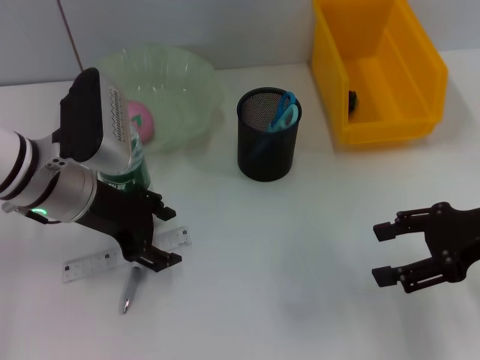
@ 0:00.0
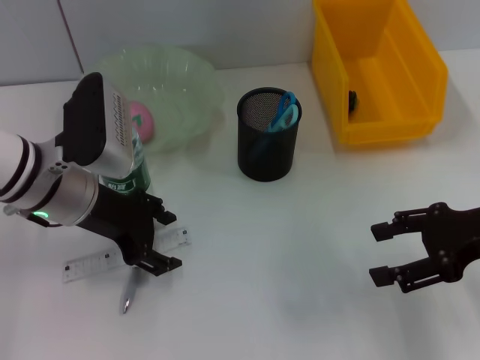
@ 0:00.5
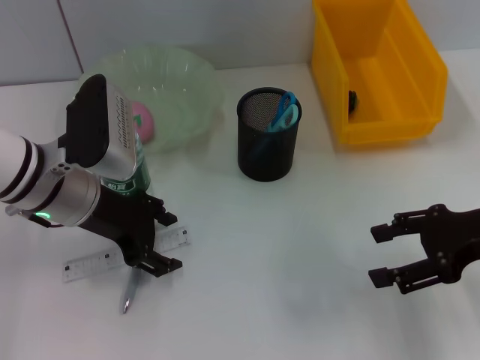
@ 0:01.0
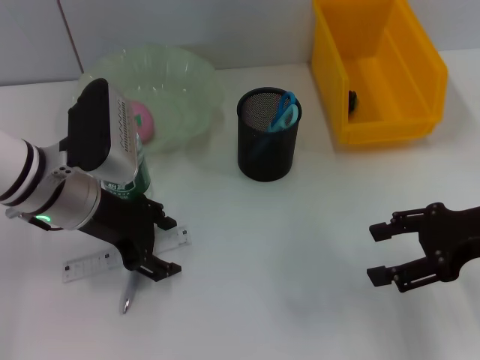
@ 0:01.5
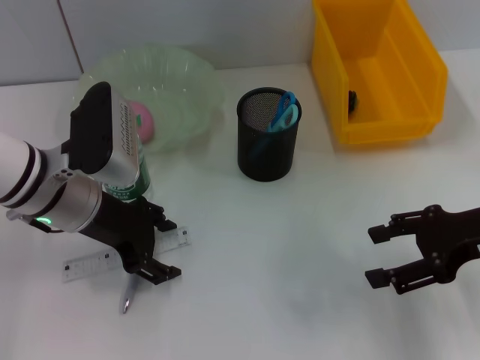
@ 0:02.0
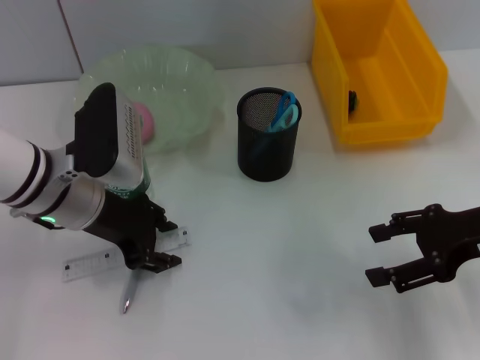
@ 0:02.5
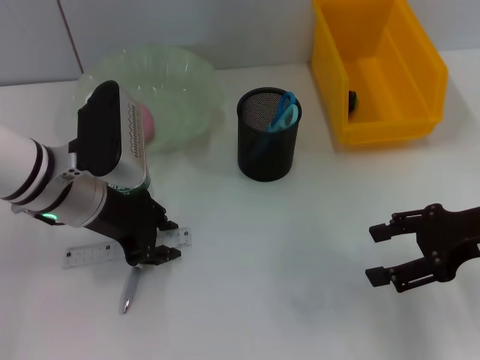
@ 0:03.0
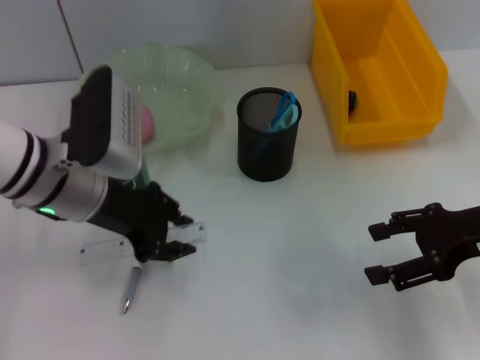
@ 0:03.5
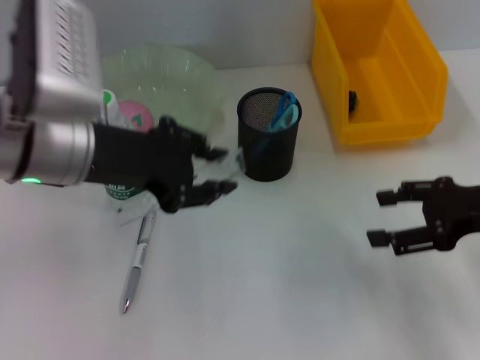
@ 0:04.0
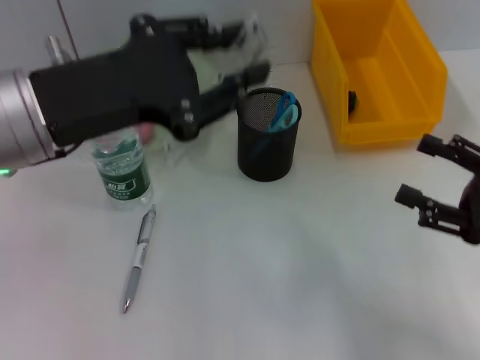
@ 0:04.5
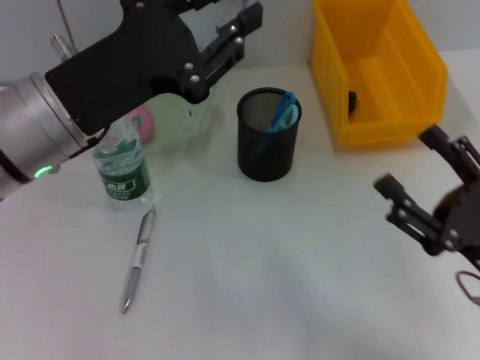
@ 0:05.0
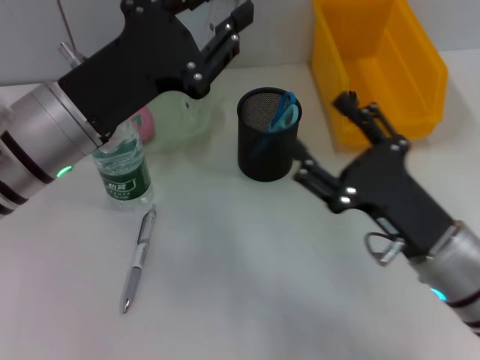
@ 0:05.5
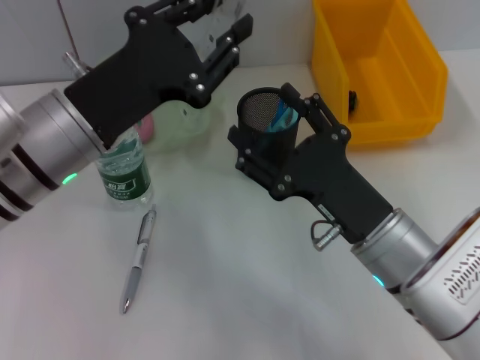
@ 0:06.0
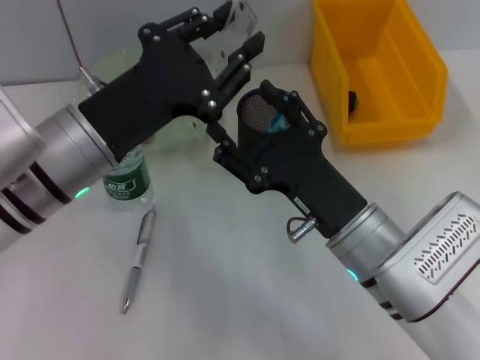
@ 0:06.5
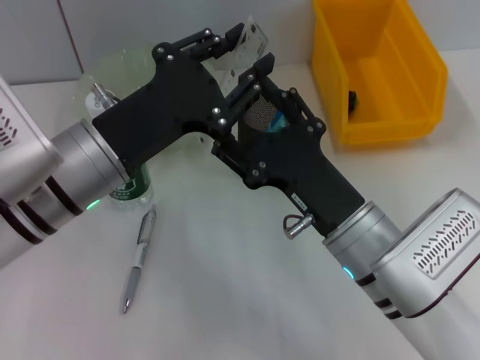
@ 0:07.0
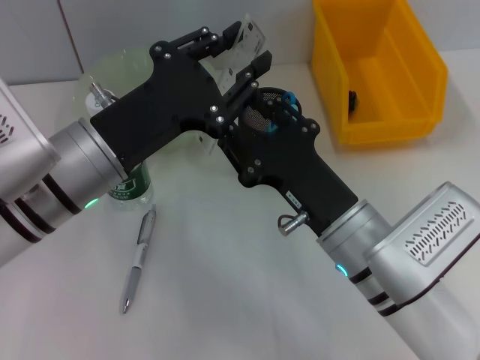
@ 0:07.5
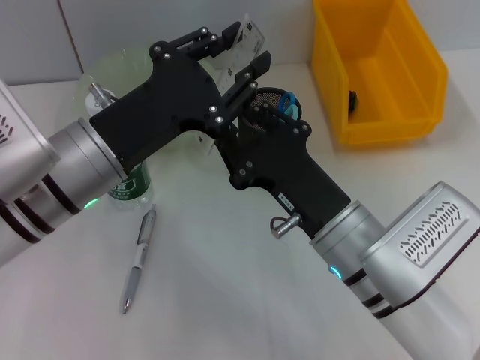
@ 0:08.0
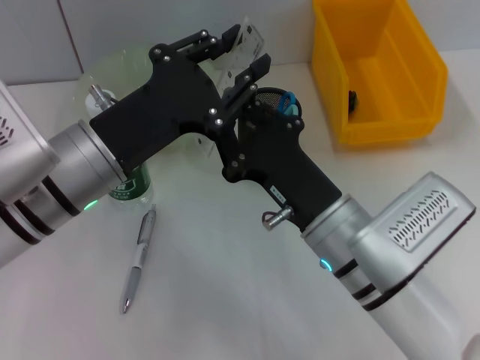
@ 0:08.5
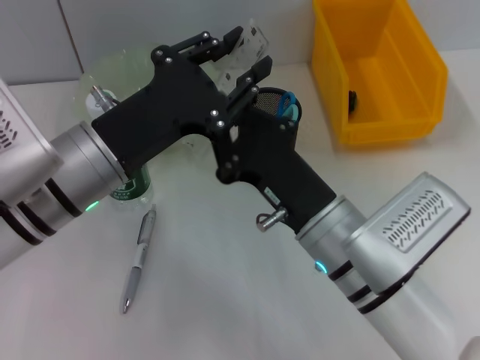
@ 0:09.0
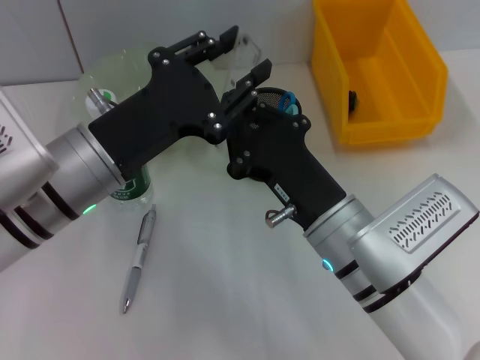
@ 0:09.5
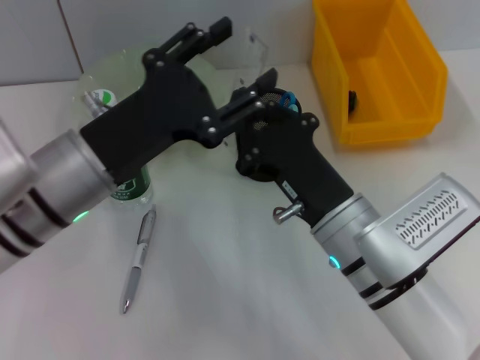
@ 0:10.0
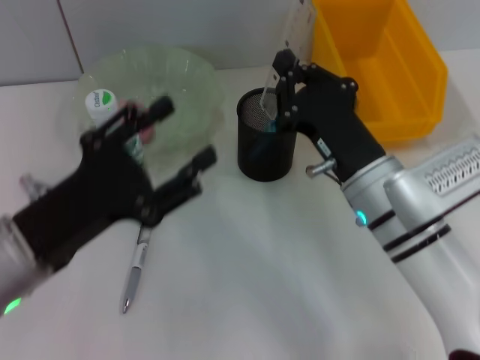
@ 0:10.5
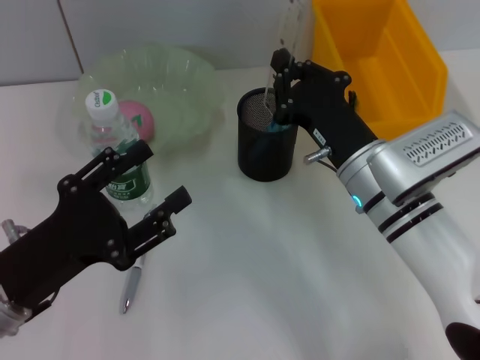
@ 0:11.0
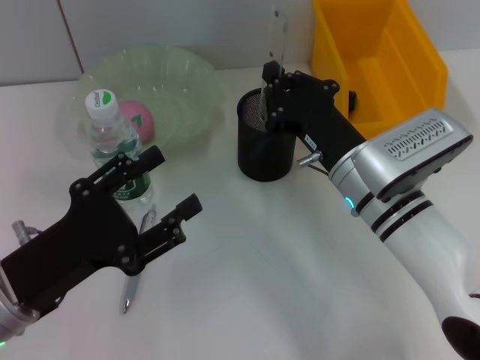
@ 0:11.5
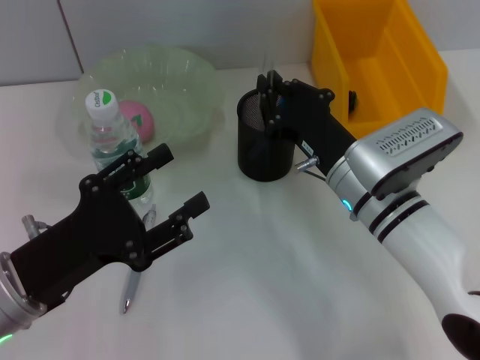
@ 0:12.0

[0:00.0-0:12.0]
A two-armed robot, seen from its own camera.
Step, 0:00.0 to 0:03.0: Grab the ruler with the left hand.
Step, 0:03.5 to 0:10.0: Pass the ruler from the left hand to the right hand.
0:00.0 to 0:02.0: Both grippers stay about where they are.
0:02.0 to 0:04.0: The left gripper is displaced upward by roughly 5 cm, and closes up.
0:04.0 to 0:06.0: The right gripper moves to the left, some 15 cm.
0:06.0 to 0:08.0: The right gripper closes up.
0:08.0 to 0:10.0: The right gripper closes up.
0:10.0 to 0:12.0: The right gripper goes approximately 5 cm forward. Meanwhile the left gripper is displaced to the left, backward and downward by approximately 10 cm.

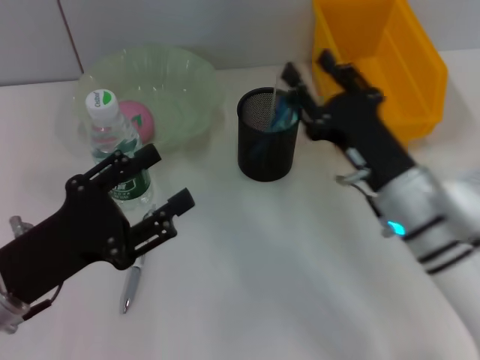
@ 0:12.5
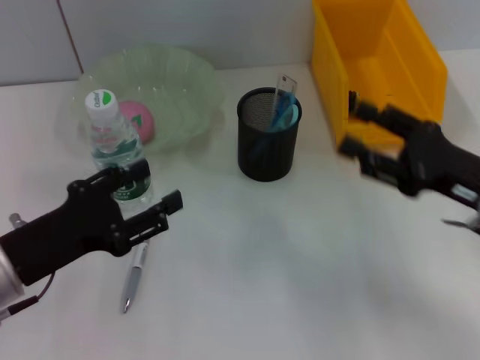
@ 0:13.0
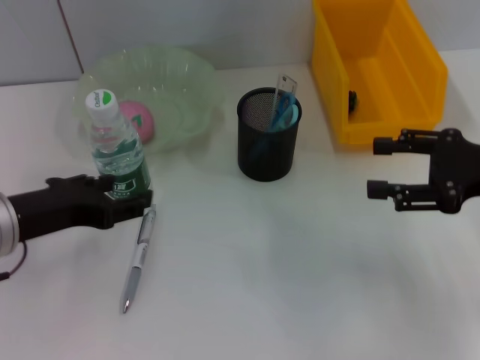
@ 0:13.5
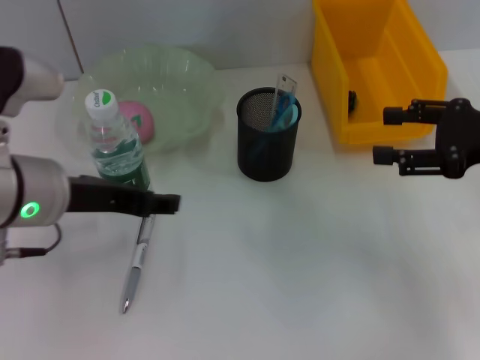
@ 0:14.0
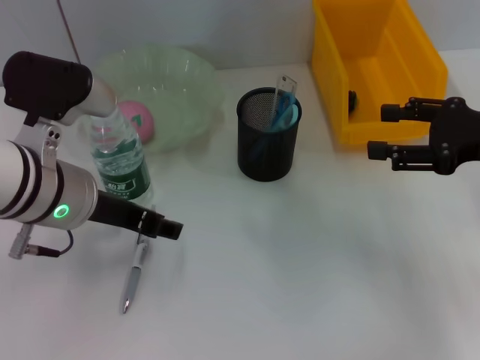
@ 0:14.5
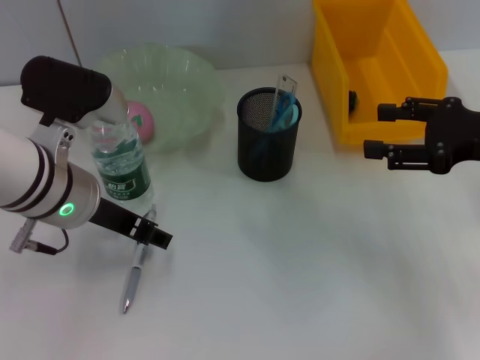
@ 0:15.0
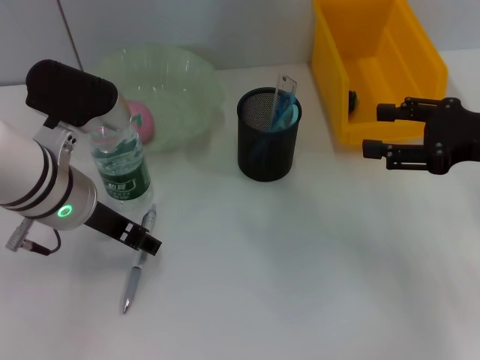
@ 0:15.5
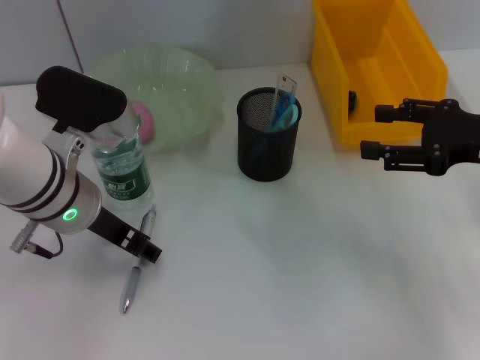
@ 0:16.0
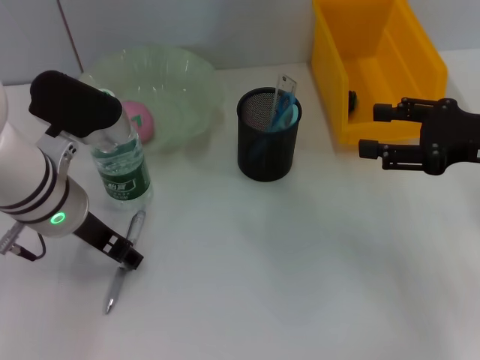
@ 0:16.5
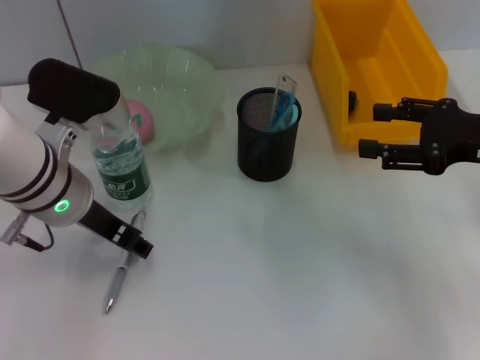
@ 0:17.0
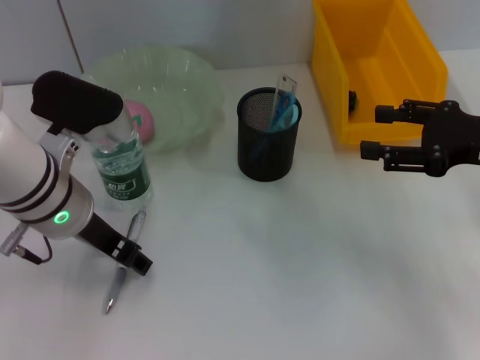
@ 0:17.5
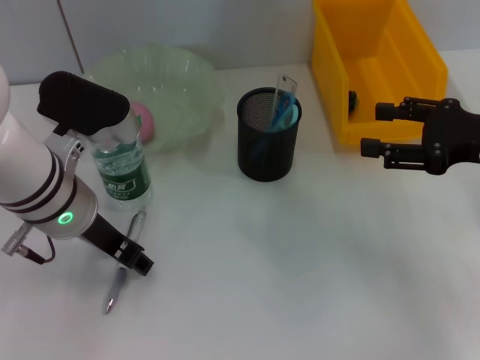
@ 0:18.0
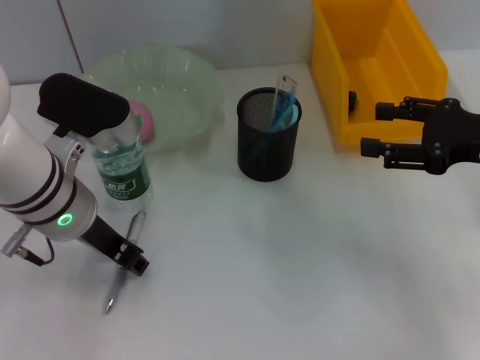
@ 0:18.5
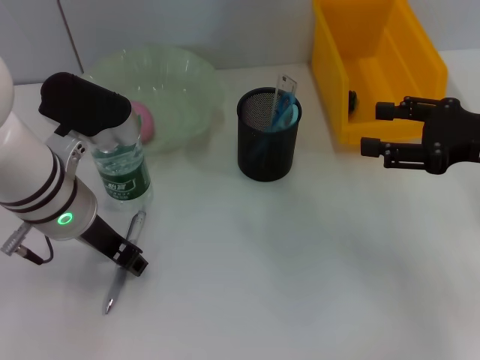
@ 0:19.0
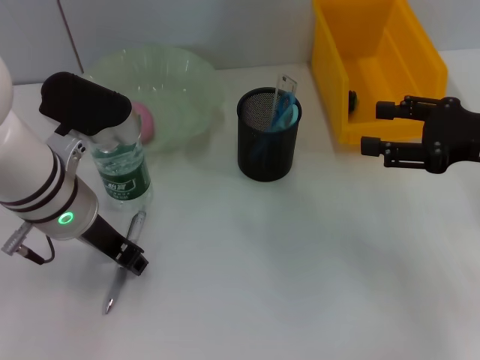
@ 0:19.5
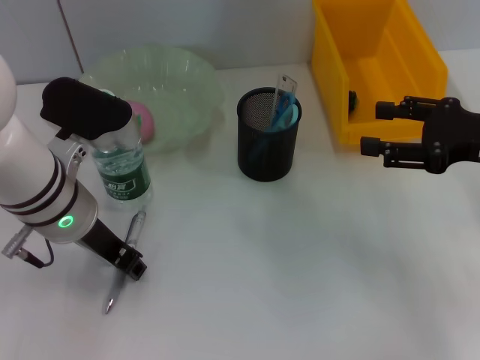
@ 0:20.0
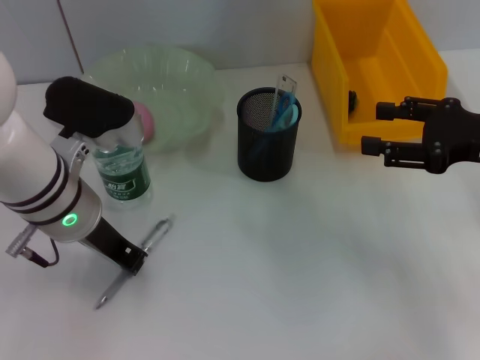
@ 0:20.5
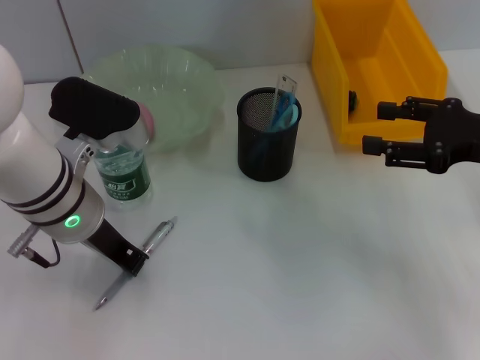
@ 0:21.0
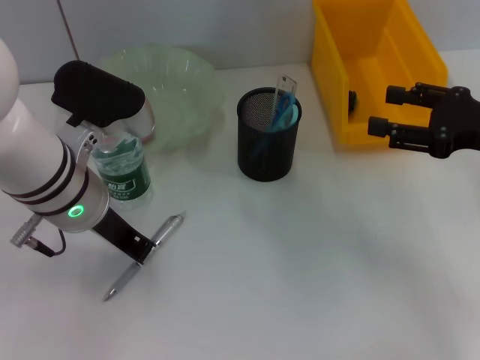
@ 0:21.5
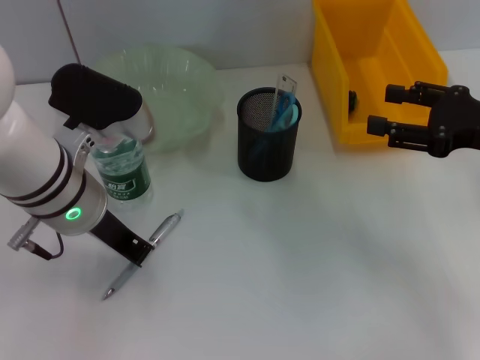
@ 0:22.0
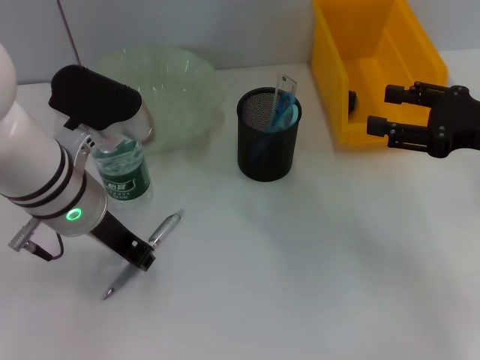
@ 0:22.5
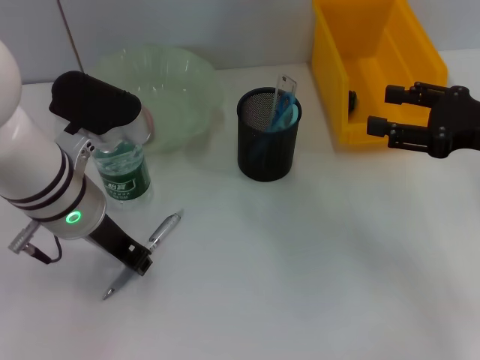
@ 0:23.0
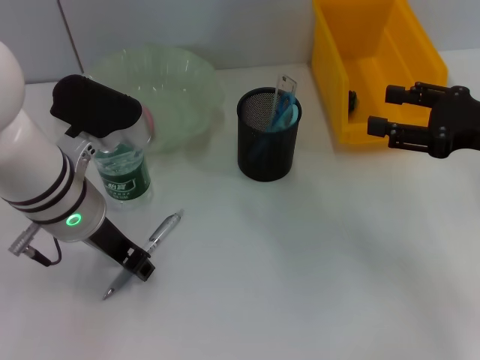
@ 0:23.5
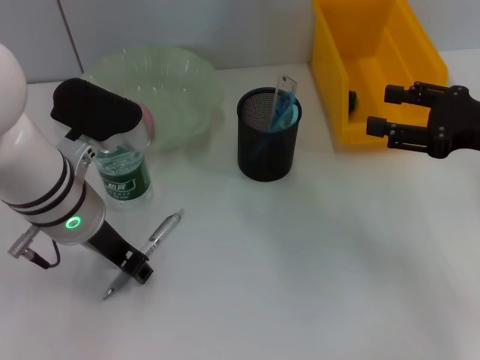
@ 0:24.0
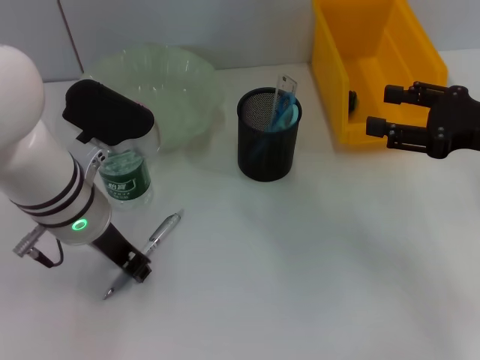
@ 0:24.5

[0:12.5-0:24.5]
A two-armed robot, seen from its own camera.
0:12.5 to 0:14.5: The left gripper heads forward, to the right and upward, covering roughly 15 cm. The right gripper moves to the right and upward, approximately 15 cm, and opens up.
0:14.5 to 0:16.5: The grippers make only small movements.
0:16.5 to 0:18.5: Neither gripper changes place.
0:18.5 to 0:20.5: The left gripper closes.
0:20.5 to 0:22.5: The grippers stay close to where they were, moving slightly.
0:22.5 to 0:24.5: Neither gripper changes place.

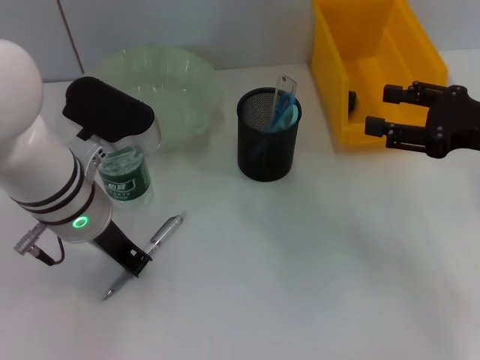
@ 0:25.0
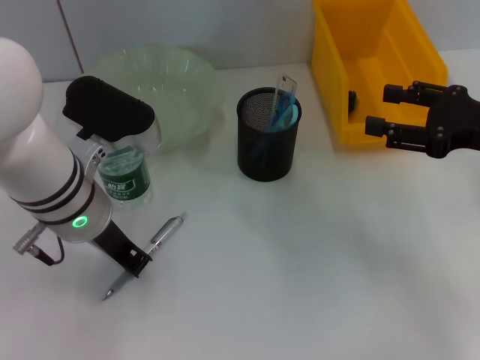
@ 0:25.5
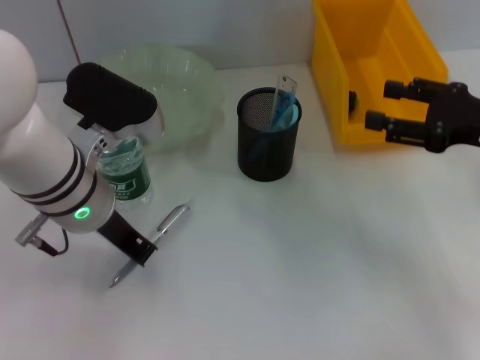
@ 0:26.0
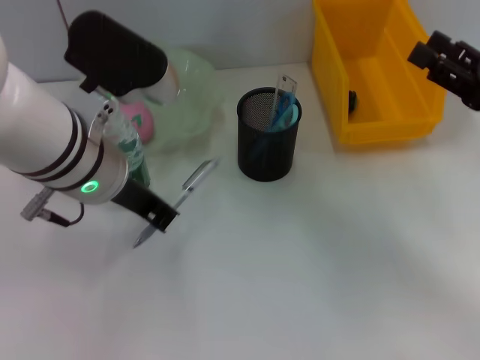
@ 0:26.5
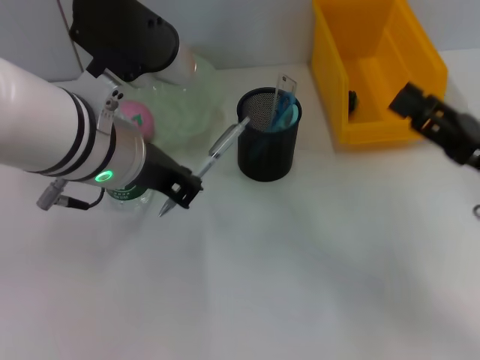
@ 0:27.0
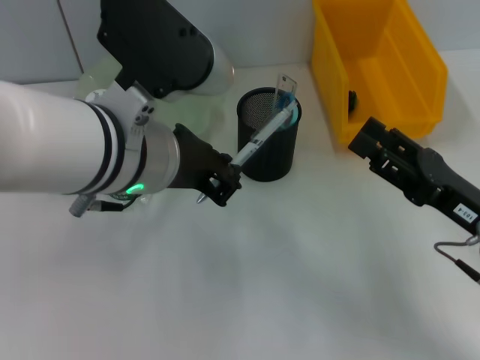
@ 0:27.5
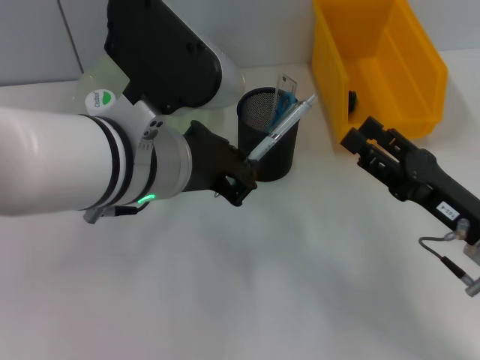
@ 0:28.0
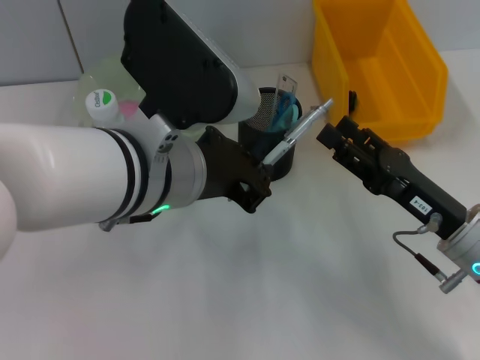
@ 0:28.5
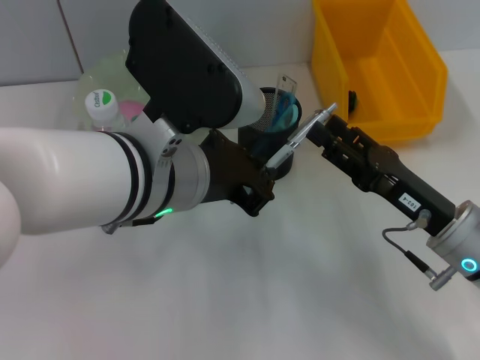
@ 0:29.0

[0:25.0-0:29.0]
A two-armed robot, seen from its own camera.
0:25.0 to 0:27.0: The right gripper travels backward and downward by approximately 5 cm, while the left gripper goes approximately 5 cm upward.
0:27.0 to 0:29.0: The right gripper goes roughly 5 cm to the left. Meanwhile the left gripper changes place by roughly 5 cm.
